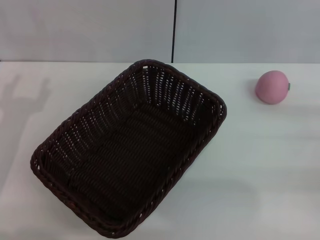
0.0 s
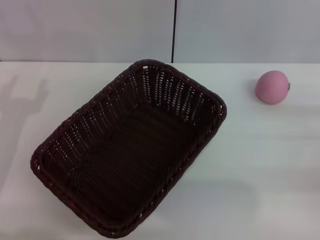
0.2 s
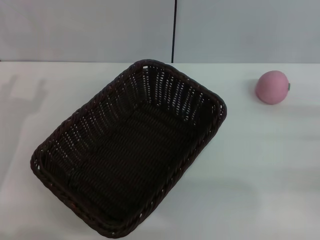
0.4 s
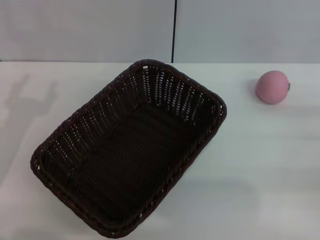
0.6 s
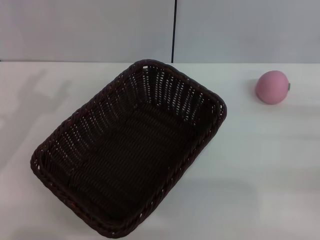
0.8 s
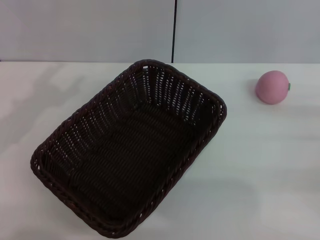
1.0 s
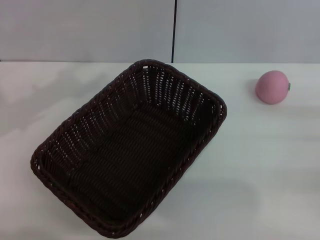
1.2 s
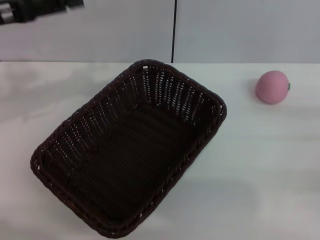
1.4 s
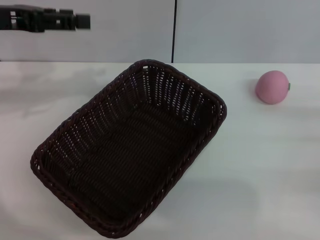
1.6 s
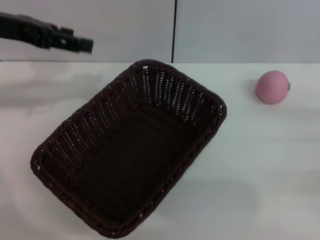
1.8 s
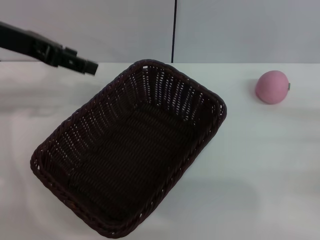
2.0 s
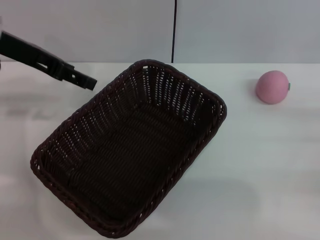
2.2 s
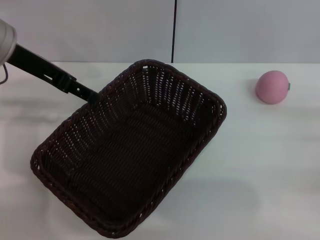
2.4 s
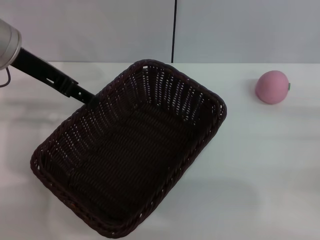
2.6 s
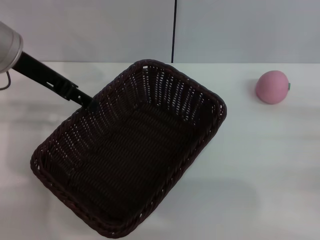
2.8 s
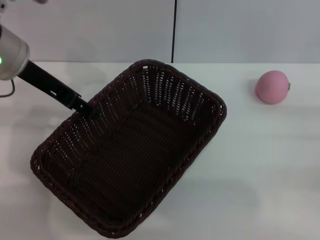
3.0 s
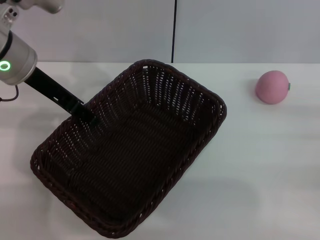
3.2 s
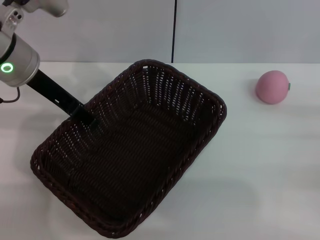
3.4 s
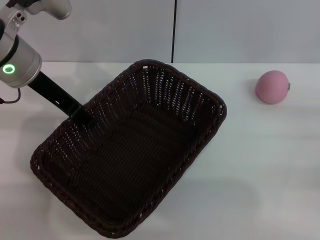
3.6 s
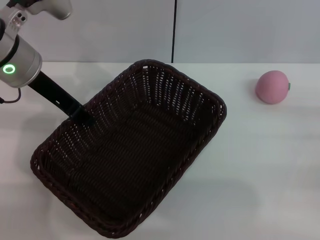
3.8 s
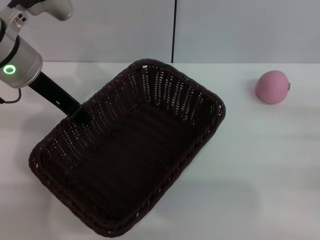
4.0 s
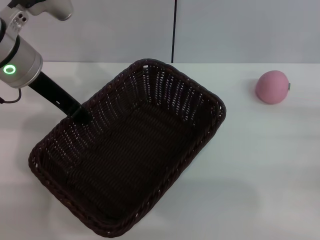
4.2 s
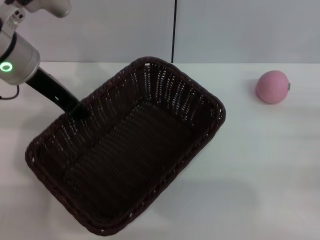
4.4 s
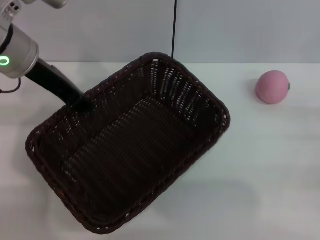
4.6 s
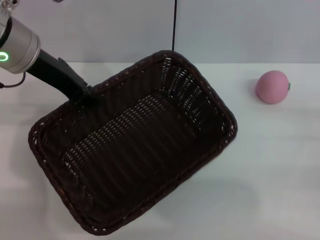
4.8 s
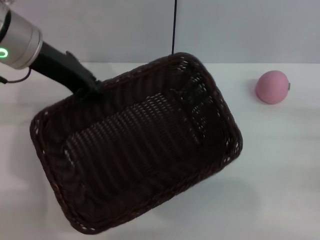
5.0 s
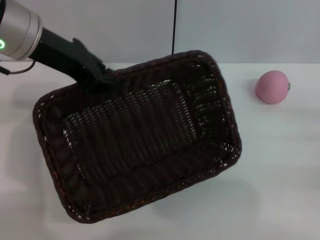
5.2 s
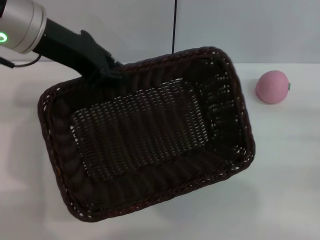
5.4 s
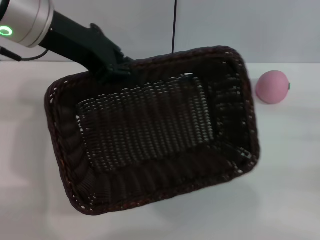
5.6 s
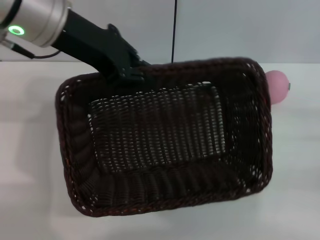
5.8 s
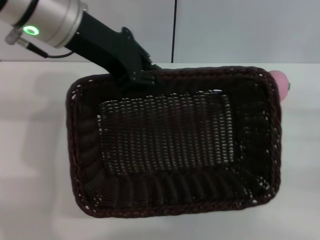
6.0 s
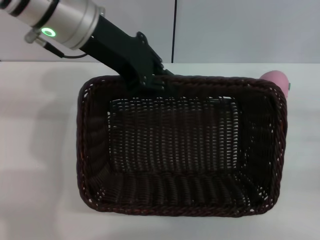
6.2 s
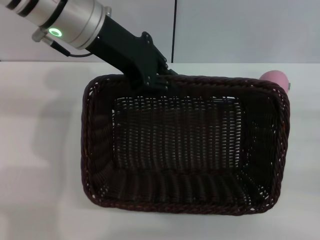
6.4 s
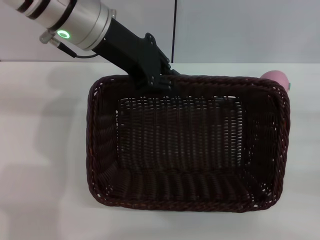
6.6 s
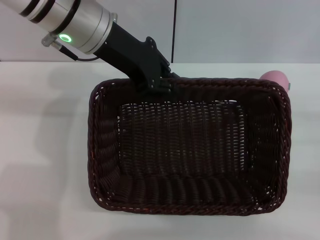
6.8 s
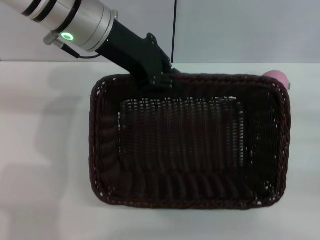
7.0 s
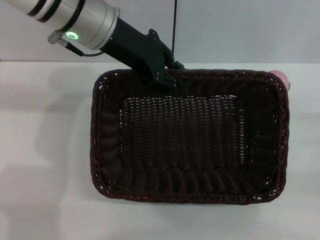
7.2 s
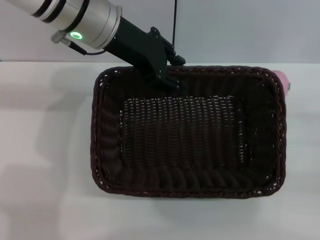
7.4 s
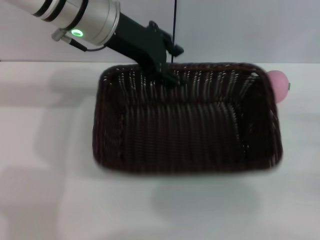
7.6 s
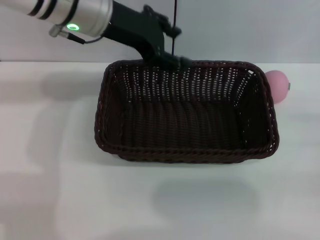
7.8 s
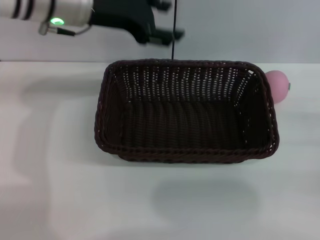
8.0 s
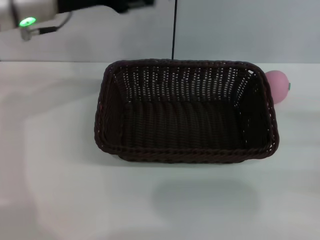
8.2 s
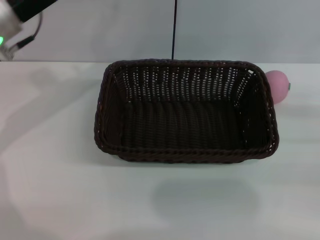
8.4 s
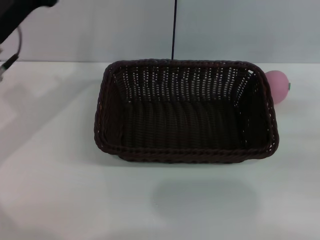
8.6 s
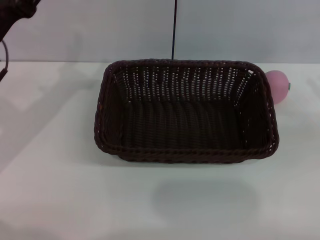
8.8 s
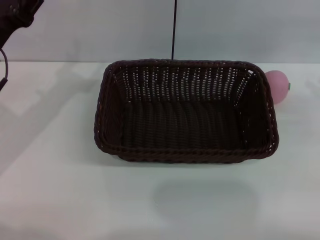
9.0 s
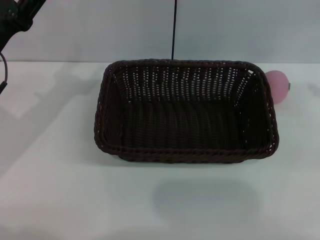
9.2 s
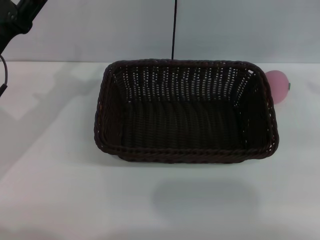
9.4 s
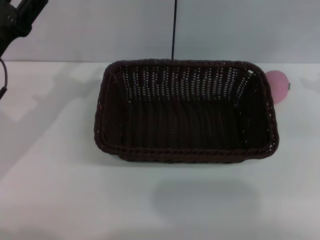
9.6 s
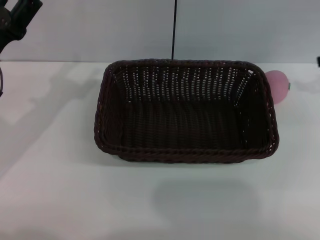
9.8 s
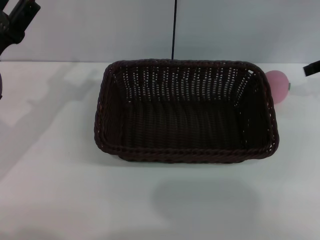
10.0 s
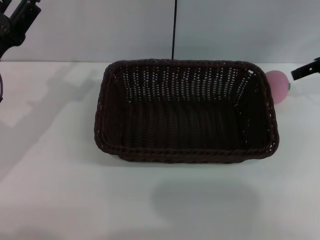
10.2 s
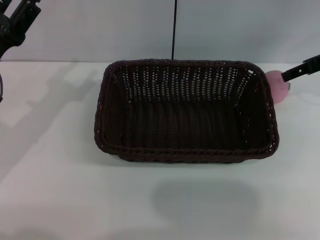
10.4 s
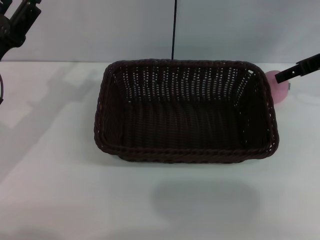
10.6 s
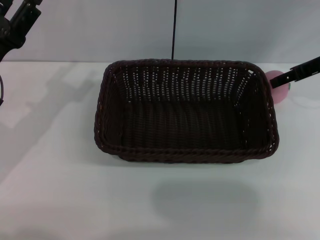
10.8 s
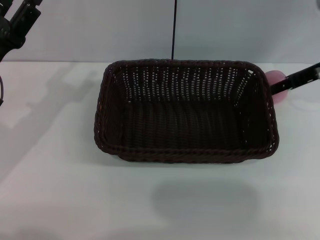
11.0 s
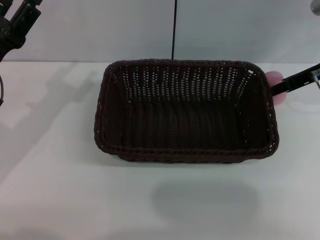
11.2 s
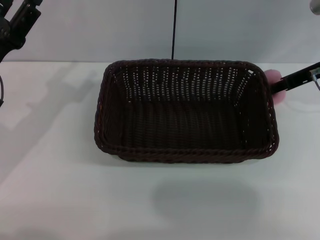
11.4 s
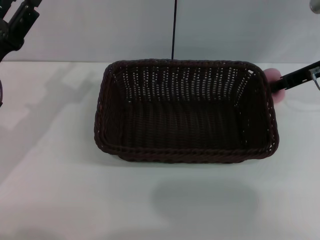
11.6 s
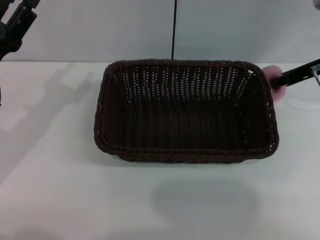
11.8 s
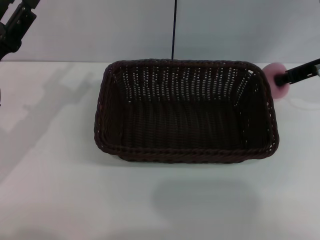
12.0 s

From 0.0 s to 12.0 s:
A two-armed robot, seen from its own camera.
Step, from 0.0 s to 4.8 s: Pick up the dark basket with the left gripper.
From 0.0 s to 1.6 s: The left gripper goes roughly 20 cm upward and forward.
From 1.6 s to 3.0 s: The left gripper is displaced to the right by some 10 cm.
From 3.0 s to 4.4 s: The left gripper closes its fingers.
From 4.4 s to 6.0 s: The left gripper moves upward and to the right, some 10 cm.
From 6.0 s to 7.6 s: The left gripper changes place by roughly 5 cm, and opens its fingers.
From 7.6 s to 9.0 s: The left gripper heads to the left, downward and backward, covering about 20 cm; the right gripper goes approximately 15 cm upward and forward.
From 9.0 s to 10.4 s: The right gripper goes about 15 cm forward and to the left.
From 10.4 s to 12.0 s: The right gripper closes up.

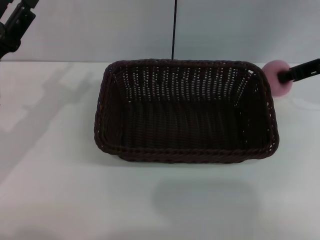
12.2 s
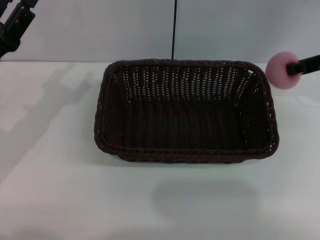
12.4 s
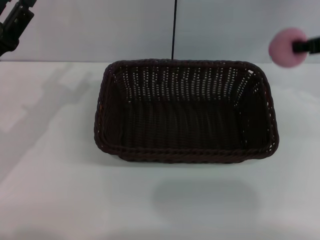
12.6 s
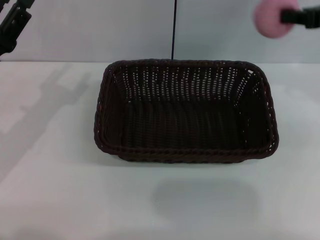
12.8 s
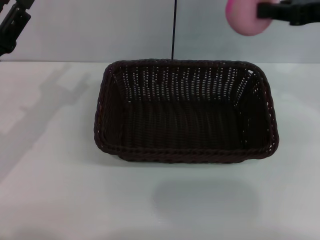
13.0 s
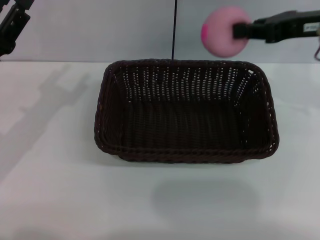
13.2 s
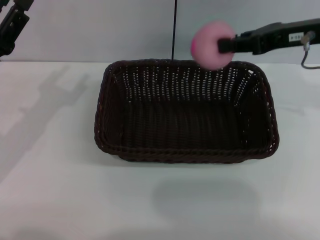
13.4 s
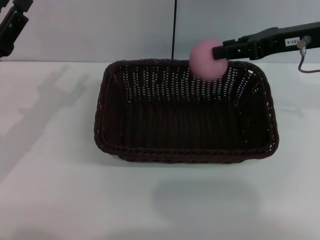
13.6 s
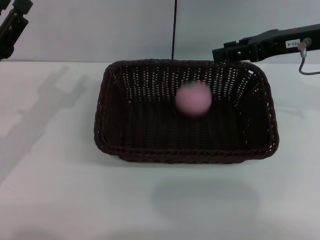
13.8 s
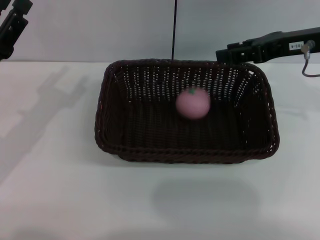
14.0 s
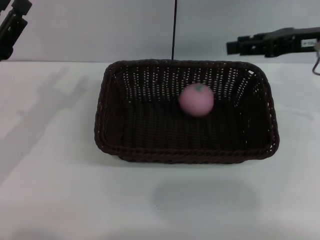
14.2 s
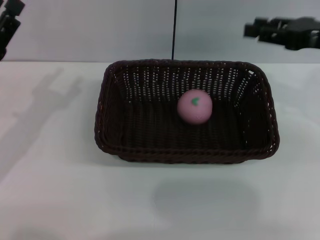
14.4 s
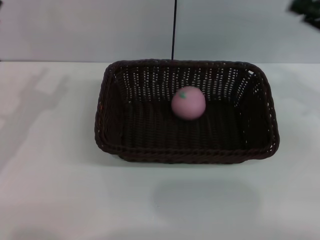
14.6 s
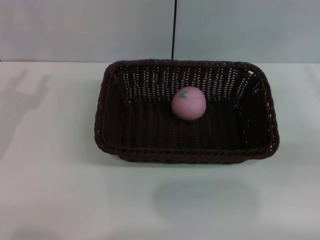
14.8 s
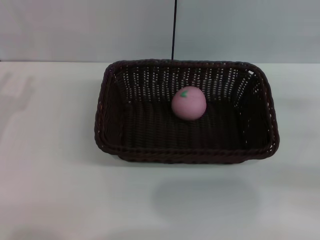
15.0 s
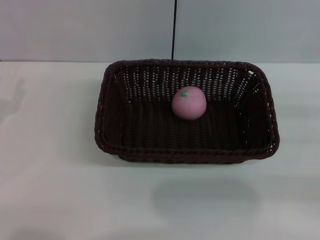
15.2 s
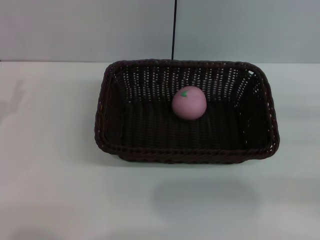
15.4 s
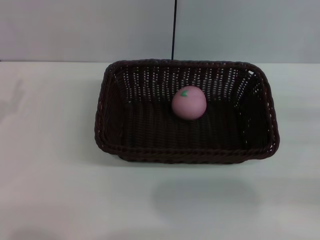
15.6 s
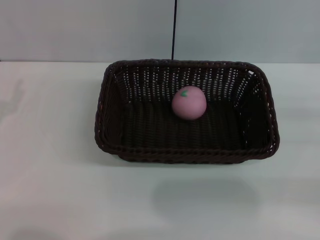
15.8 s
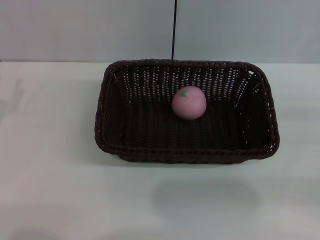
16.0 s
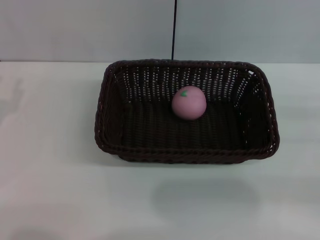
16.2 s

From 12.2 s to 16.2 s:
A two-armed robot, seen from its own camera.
From 12.2 s to 13.6 s: The right gripper travels to the left by roughly 5 cm.
From 13.6 s to 14.8 s: The right gripper moves to the right, backward and downward, approximately 20 cm, and opens its fingers.

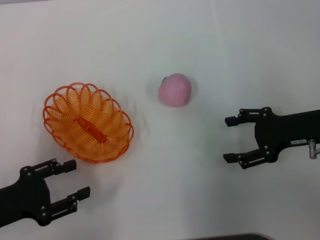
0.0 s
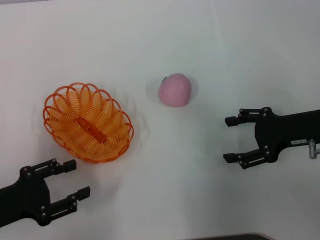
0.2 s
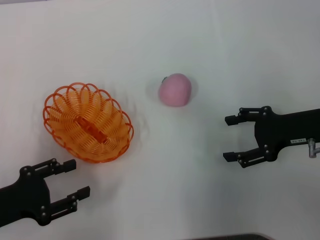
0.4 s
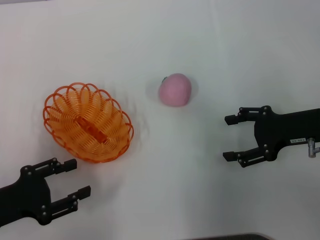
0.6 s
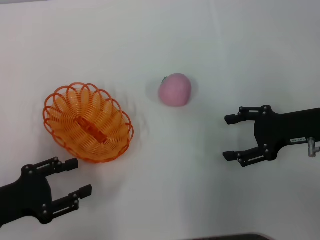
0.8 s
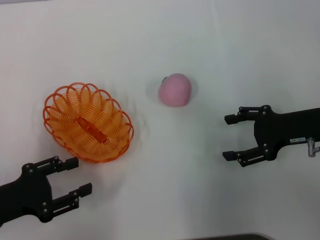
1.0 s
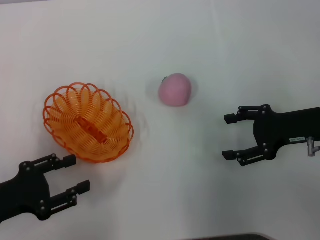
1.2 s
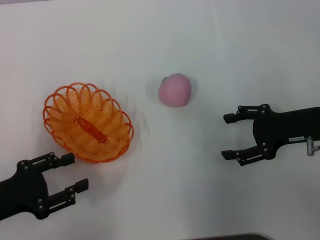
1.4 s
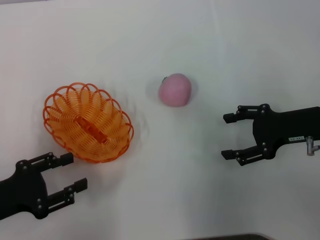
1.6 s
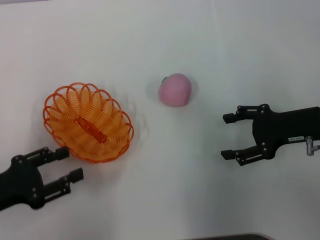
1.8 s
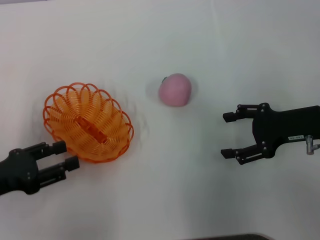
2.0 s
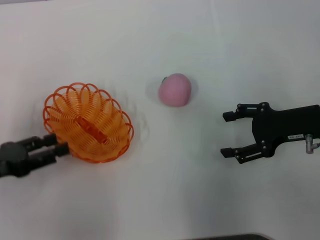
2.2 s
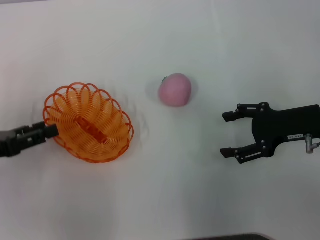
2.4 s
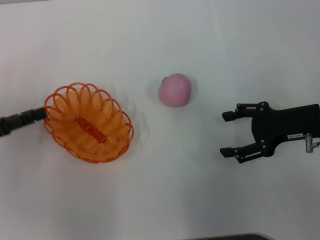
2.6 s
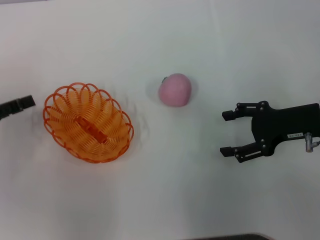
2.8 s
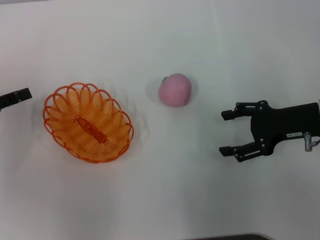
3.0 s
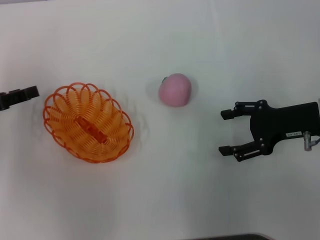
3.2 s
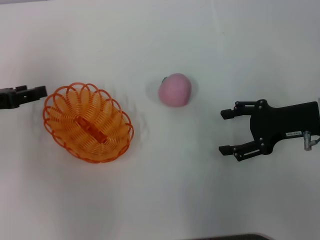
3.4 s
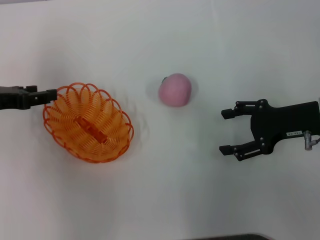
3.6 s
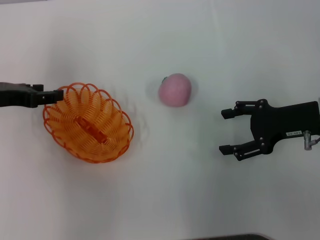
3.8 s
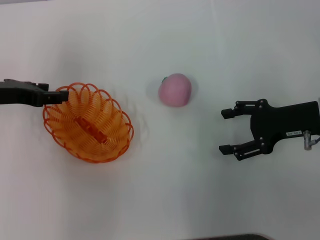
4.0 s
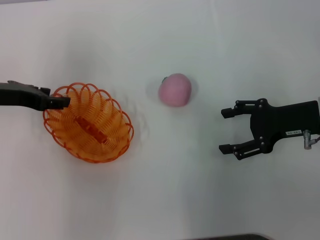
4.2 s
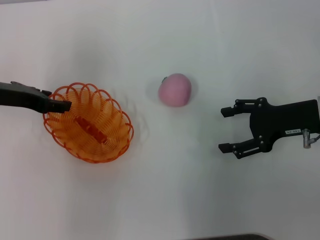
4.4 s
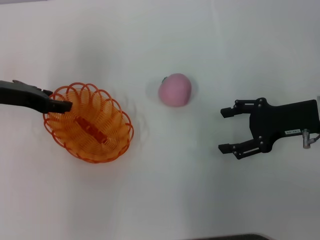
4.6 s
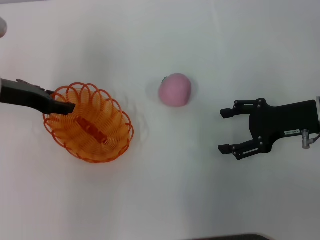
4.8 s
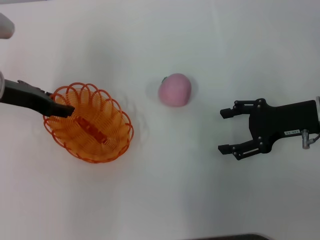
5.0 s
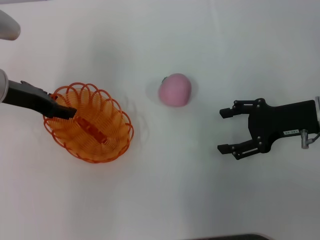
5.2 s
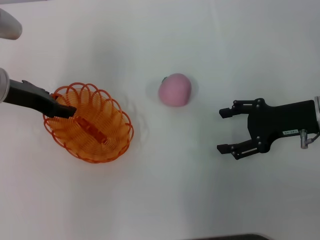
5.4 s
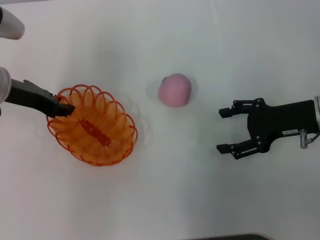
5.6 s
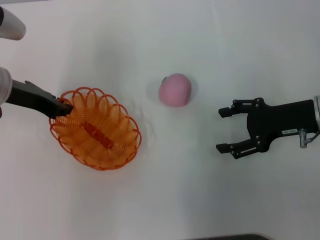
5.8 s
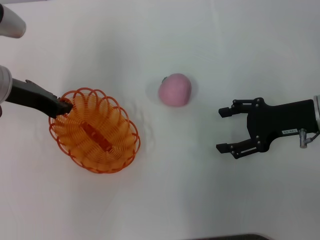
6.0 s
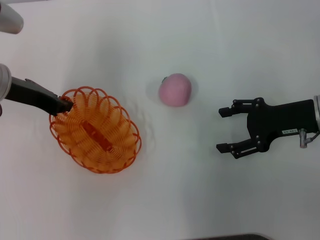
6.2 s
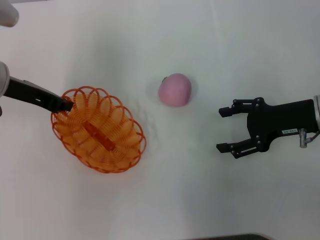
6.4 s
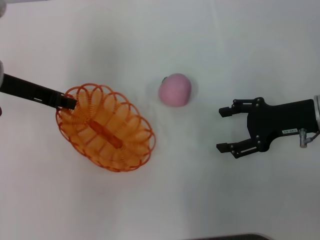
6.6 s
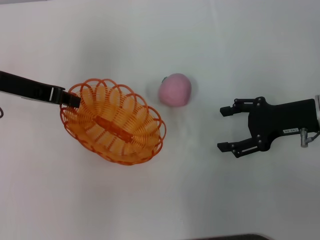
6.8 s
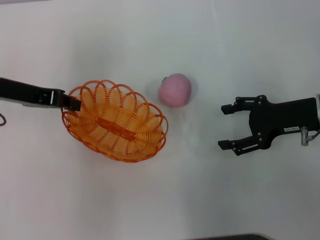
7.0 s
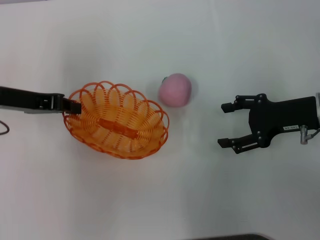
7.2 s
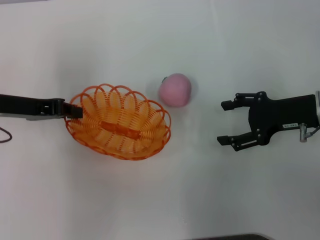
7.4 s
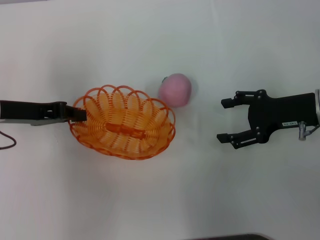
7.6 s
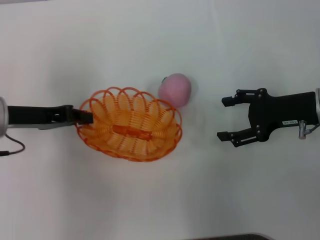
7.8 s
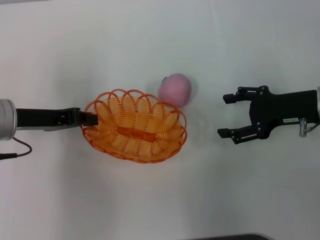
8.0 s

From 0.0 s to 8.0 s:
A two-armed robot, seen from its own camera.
Step, from 0.0 s to 7.0 s: Pick up the basket with the left gripper.
From 0.0 s to 1.6 s: Both grippers stay about where they are.
From 1.6 s to 3.2 s: The left gripper heads forward and upward, covering roughly 10 cm.
From 3.2 s to 4.8 s: The left gripper travels to the right and forward by approximately 10 cm.
From 4.8 s to 6.4 s: The left gripper closes up.
From 6.4 s to 8.0 s: The left gripper is displaced backward by about 5 cm.
